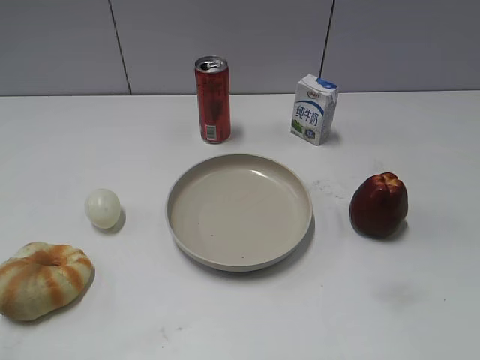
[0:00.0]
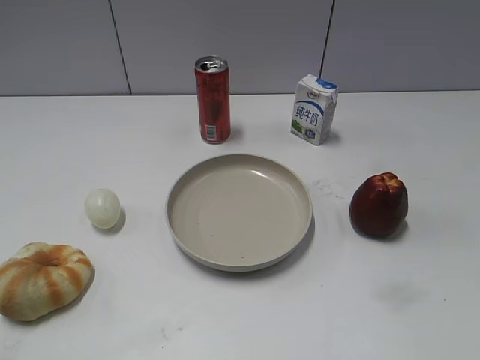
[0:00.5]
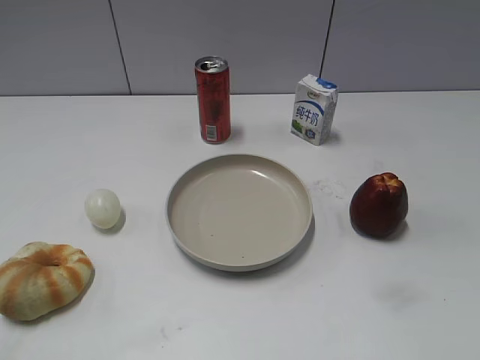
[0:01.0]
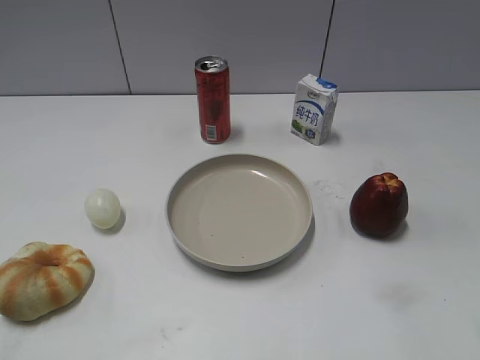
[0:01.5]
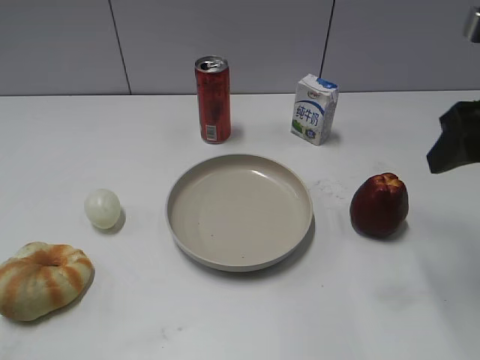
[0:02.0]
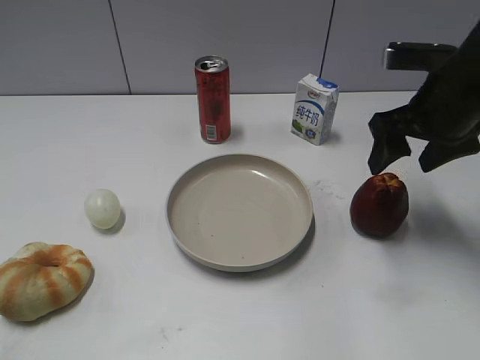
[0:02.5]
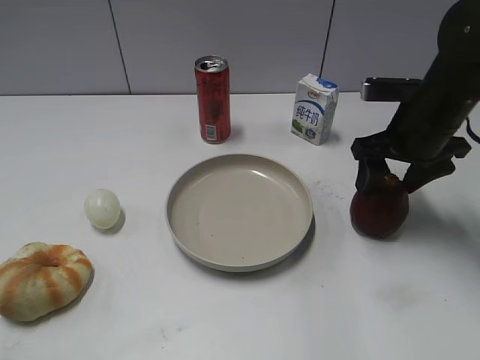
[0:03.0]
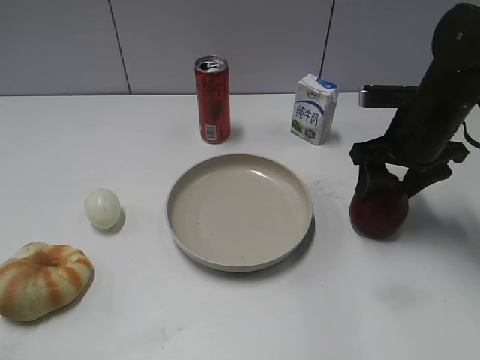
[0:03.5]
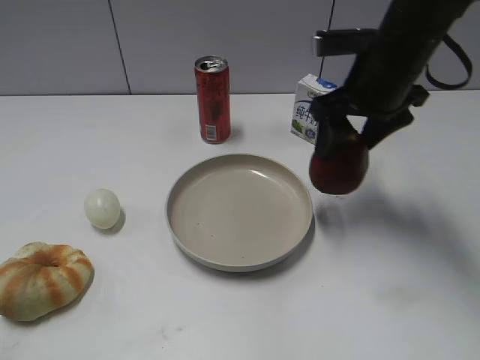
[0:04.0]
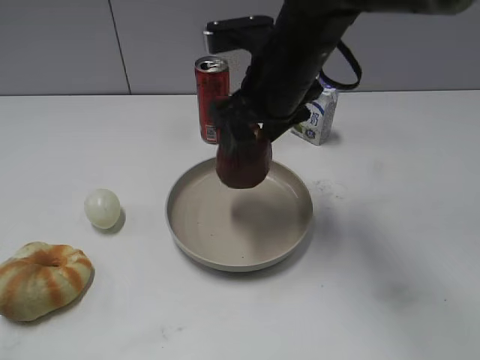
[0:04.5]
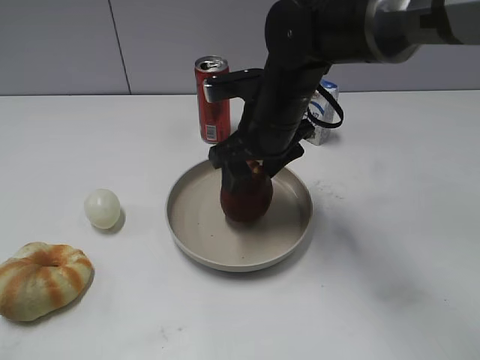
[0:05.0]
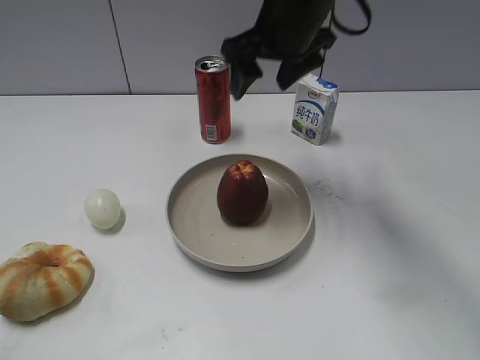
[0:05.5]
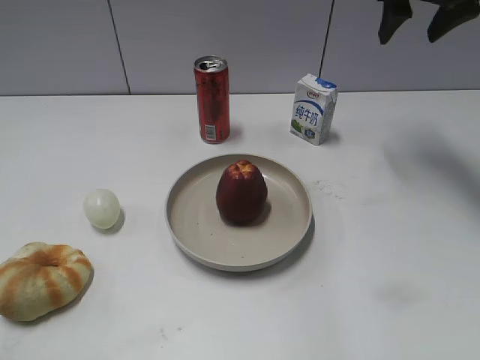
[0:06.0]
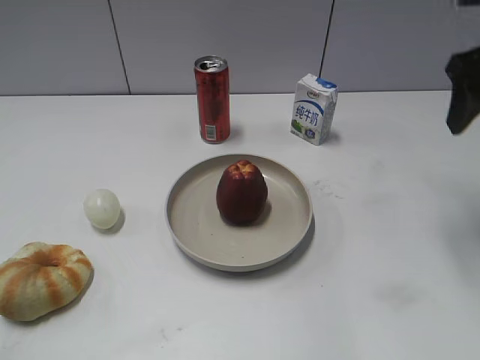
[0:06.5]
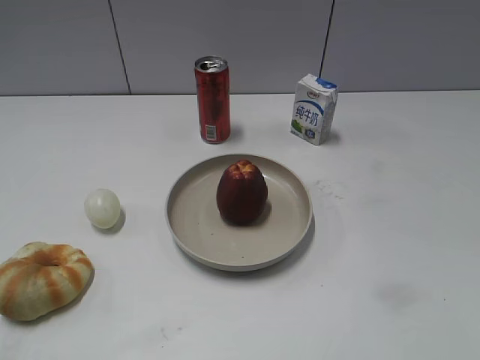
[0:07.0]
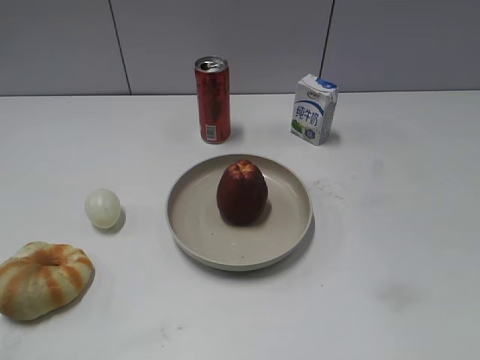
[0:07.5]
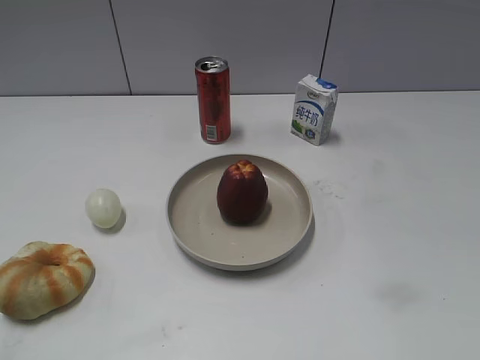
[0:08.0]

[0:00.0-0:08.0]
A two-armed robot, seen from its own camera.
Step, 0:02.0 to 0:03.5: Grasp the apple with right gripper.
Step, 0:04.0 to 0:05.0: Place the apple on the plate with right gripper.
0:02.0 to 0:04.0: The right gripper heads forward and to the left, covering roughly 15 cm, and opens and closes again.
0:04.0 to 0:06.0: The right gripper shifts about 15 cm forward, to the right and upward, and opens.
0:06.0 to 0:08.0: The right gripper heads backward, covering approximately 50 cm.
